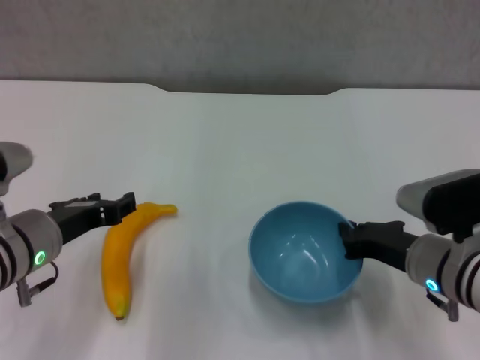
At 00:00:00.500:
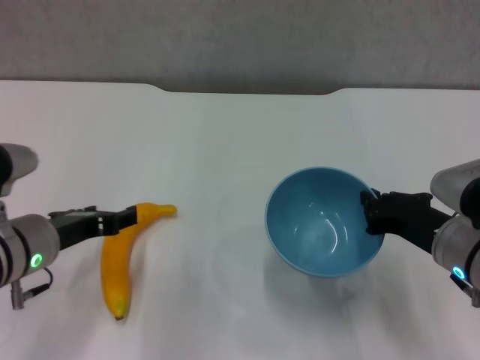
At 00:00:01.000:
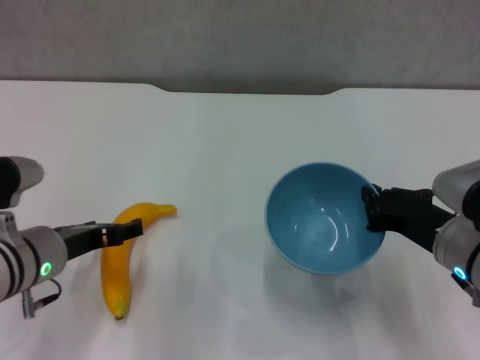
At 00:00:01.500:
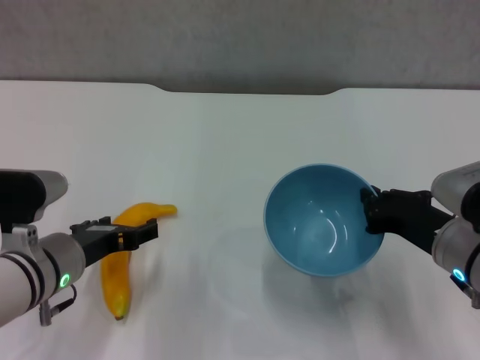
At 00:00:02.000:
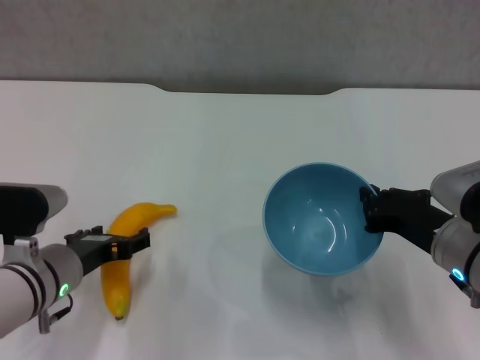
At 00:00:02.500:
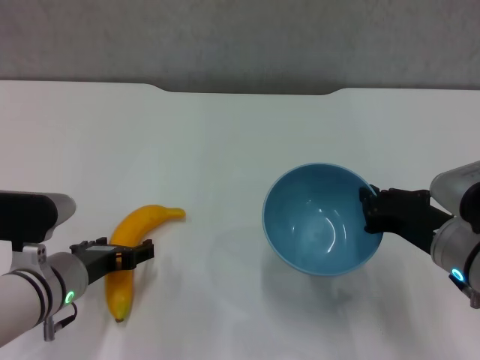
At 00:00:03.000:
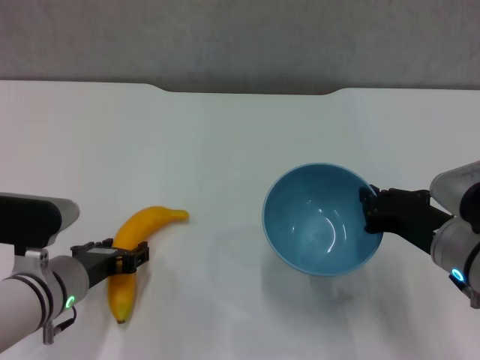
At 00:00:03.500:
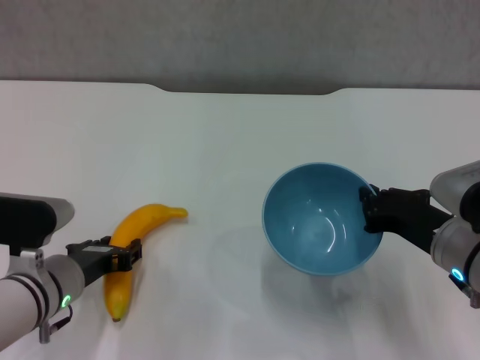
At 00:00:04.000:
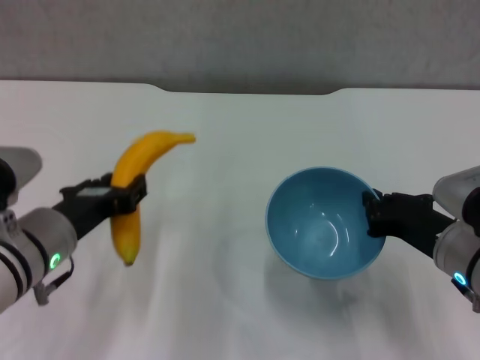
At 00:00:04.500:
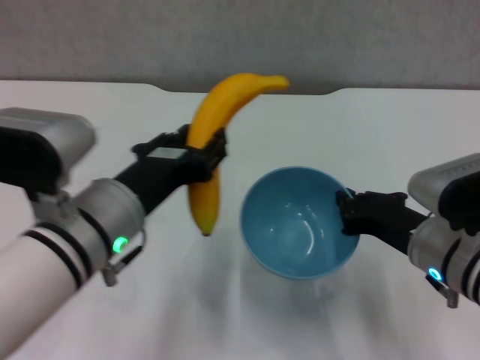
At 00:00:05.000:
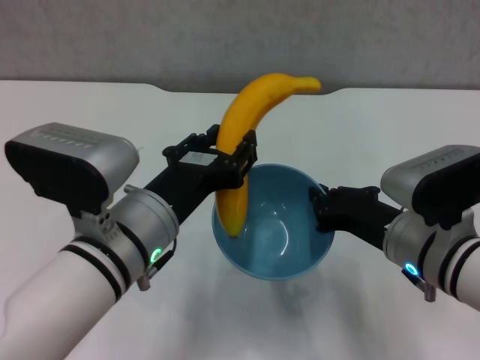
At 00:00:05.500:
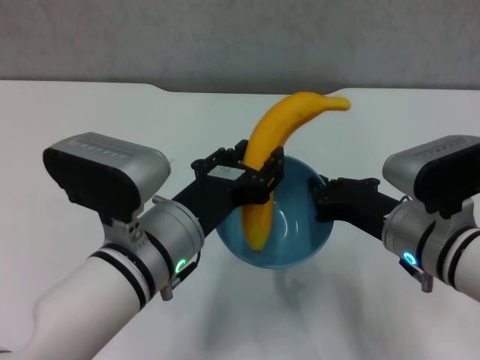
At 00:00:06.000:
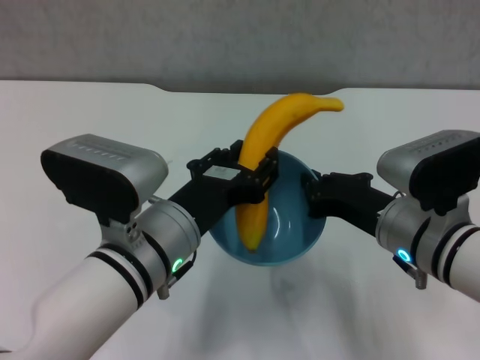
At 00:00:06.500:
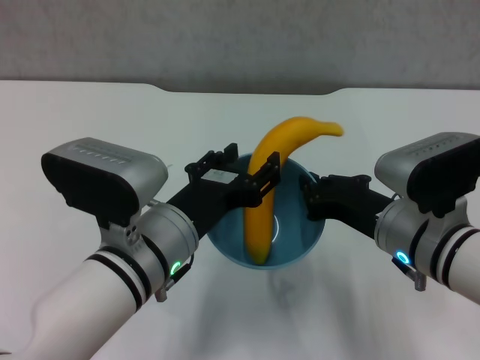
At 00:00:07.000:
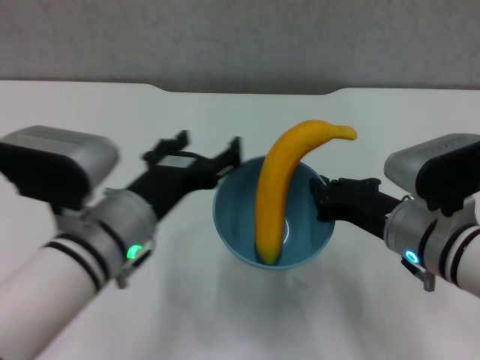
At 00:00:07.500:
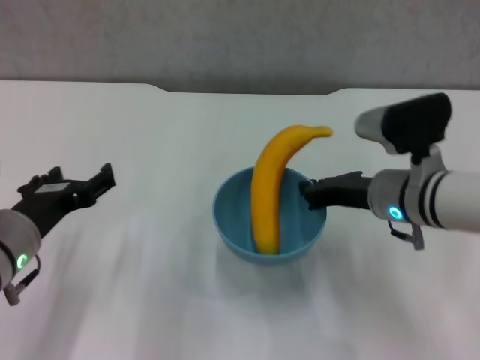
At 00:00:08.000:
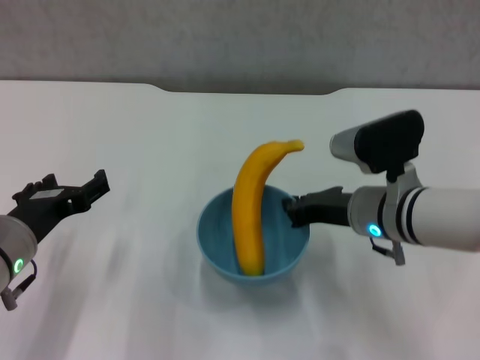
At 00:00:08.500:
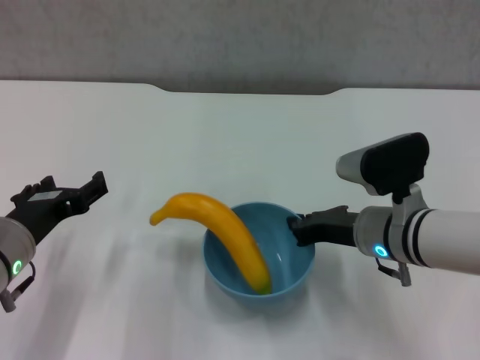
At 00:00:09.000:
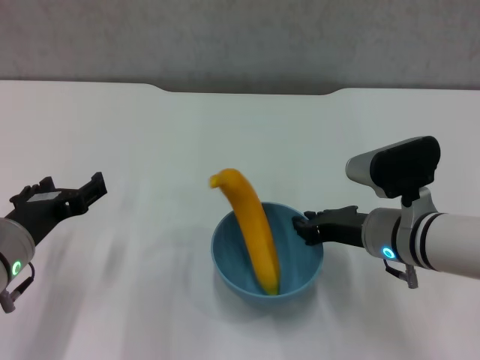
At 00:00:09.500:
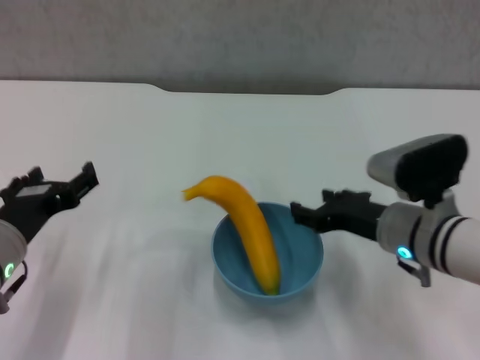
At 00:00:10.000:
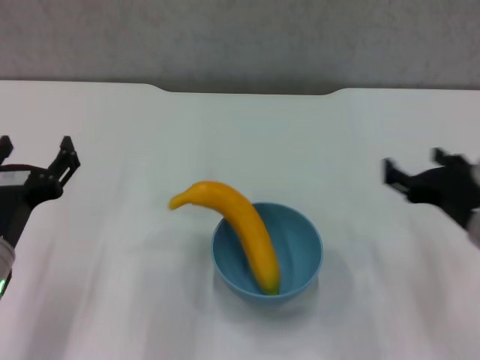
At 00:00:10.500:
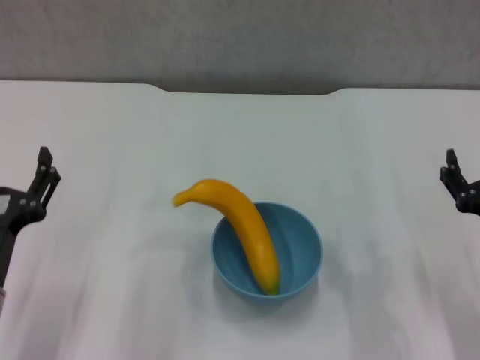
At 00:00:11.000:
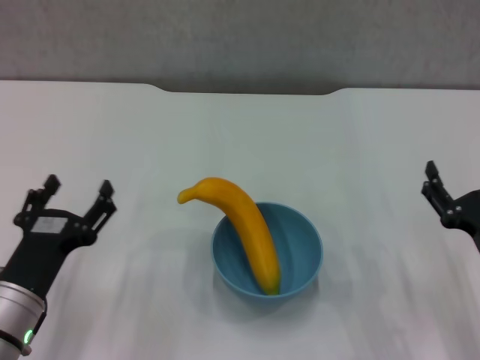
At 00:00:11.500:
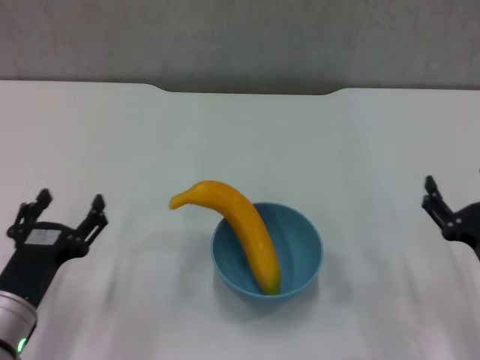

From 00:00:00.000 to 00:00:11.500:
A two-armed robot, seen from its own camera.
Step, from 00:00:00.000 to 00:00:00.500: Lift the blue bowl with right gripper.
Step, from 00:00:01.000 to 00:00:03.000: Grasp the banana with left gripper.
Step, from 00:00:03.500 to 00:00:06.500: Place the banana in the blue bowl with left gripper.
Step, from 00:00:07.000 to 00:00:09.500: Place the bowl on the table with right gripper.
From 00:00:00.000 to 00:00:02.000: The left gripper heads downward, covering roughly 5 cm, and opens.
From 00:00:02.000 to 00:00:04.000: The left gripper shifts approximately 5 cm upward, and closes its fingers.
From 00:00:04.000 to 00:00:06.000: The right gripper travels to the left by roughly 5 cm. Meanwhile the left gripper is displaced to the right by roughly 10 cm.
From 00:00:06.000 to 00:00:07.500: The left gripper moves to the left, approximately 15 cm, and opens up. The right gripper travels forward by approximately 5 cm.
From 00:00:07.500 to 00:00:09.500: The right gripper opens.
From 00:00:09.500 to 00:00:11.500: The right gripper is displaced to the right, backward and downward by roughly 15 cm, and opens up, while the left gripper travels downward by some 5 cm.
